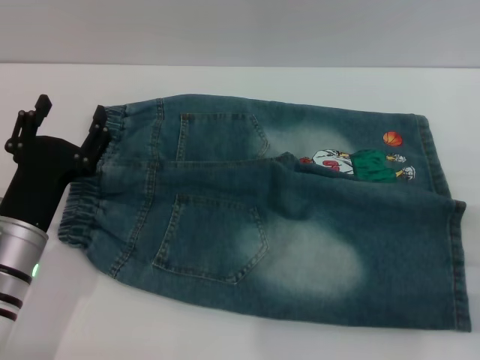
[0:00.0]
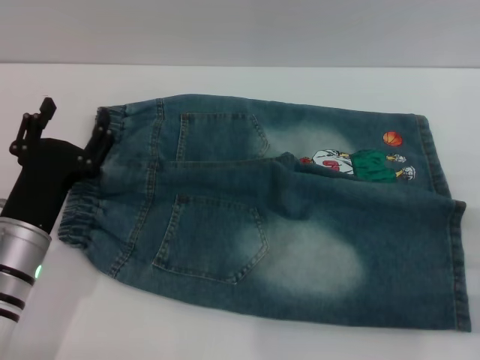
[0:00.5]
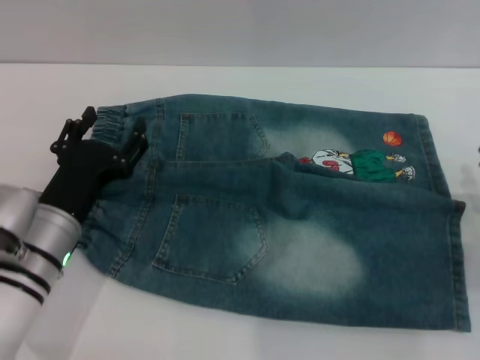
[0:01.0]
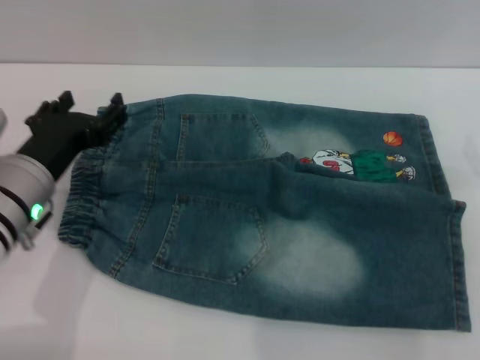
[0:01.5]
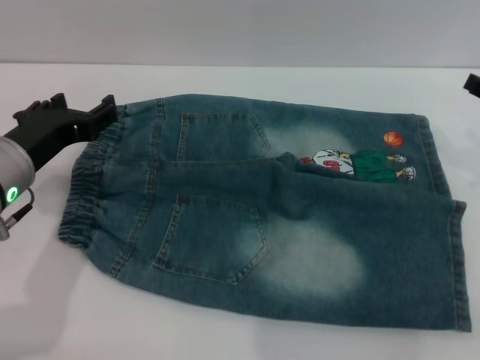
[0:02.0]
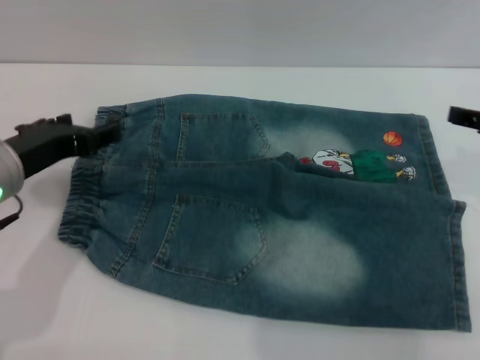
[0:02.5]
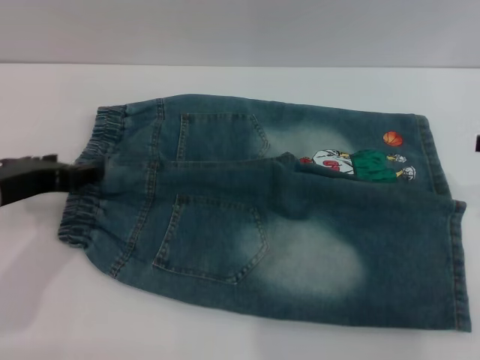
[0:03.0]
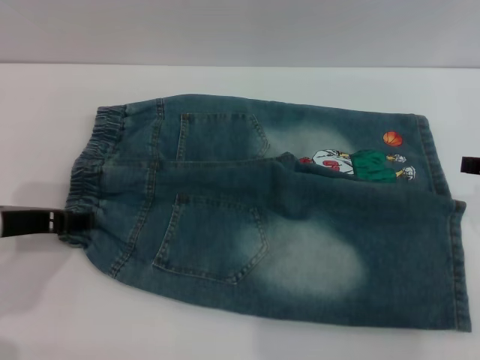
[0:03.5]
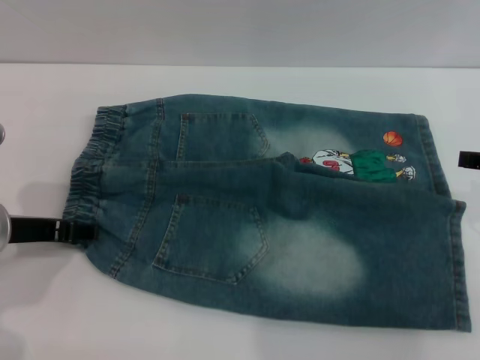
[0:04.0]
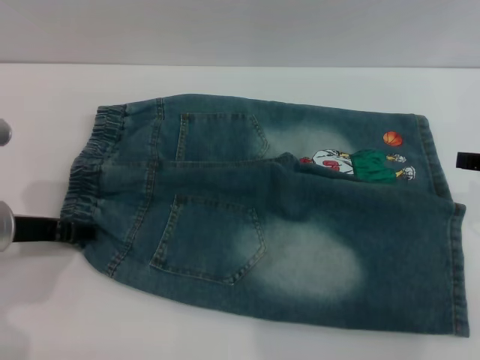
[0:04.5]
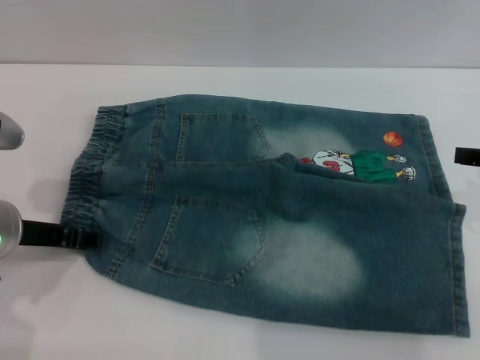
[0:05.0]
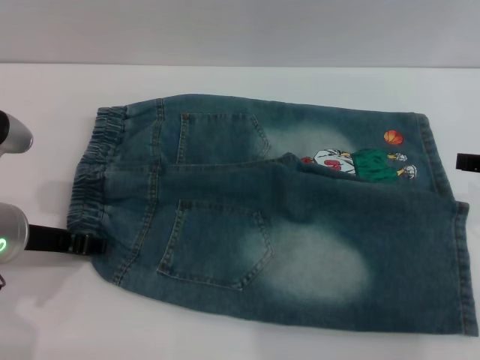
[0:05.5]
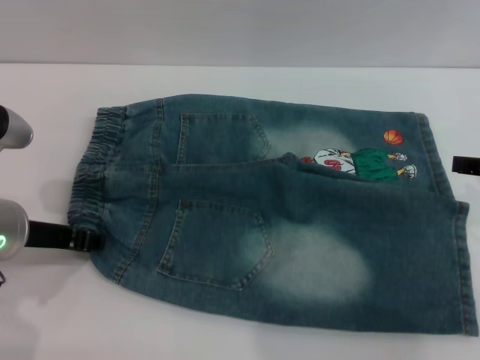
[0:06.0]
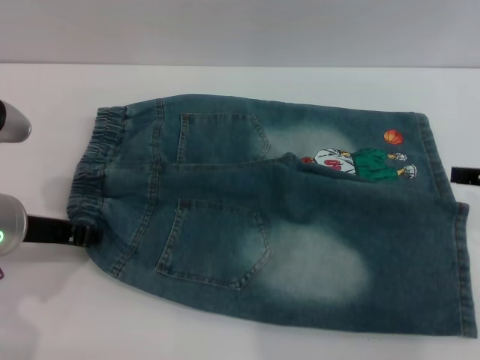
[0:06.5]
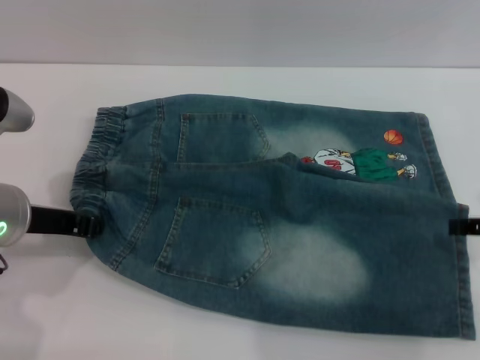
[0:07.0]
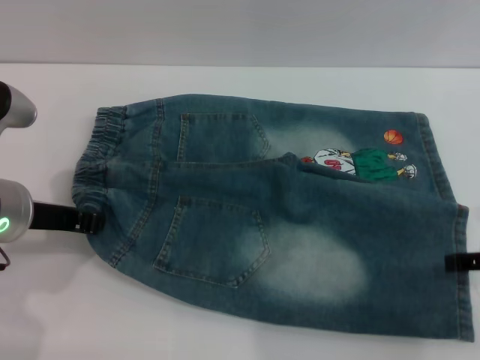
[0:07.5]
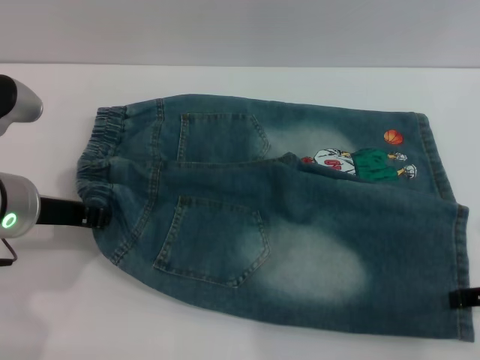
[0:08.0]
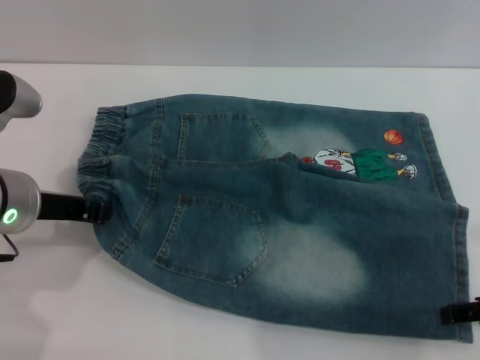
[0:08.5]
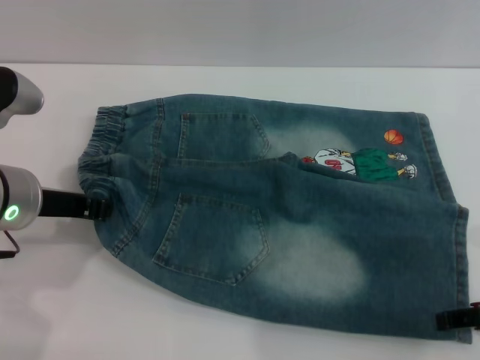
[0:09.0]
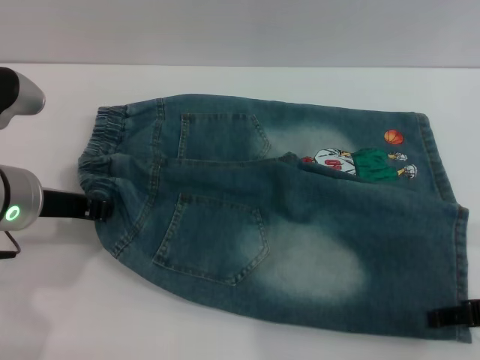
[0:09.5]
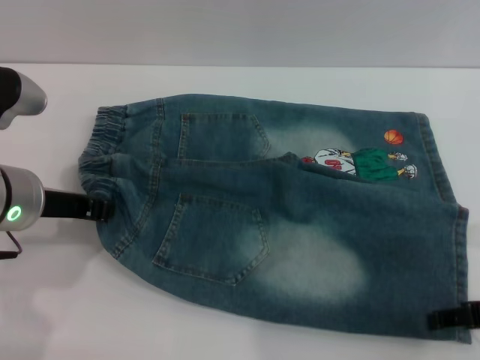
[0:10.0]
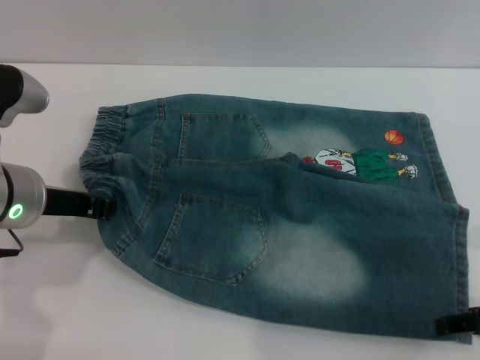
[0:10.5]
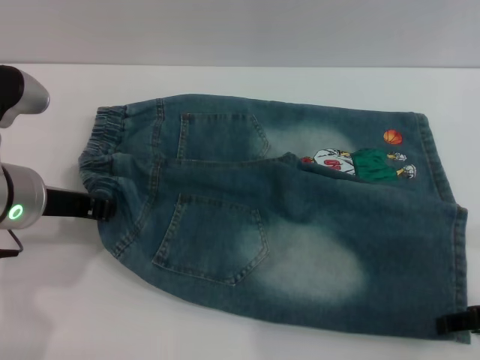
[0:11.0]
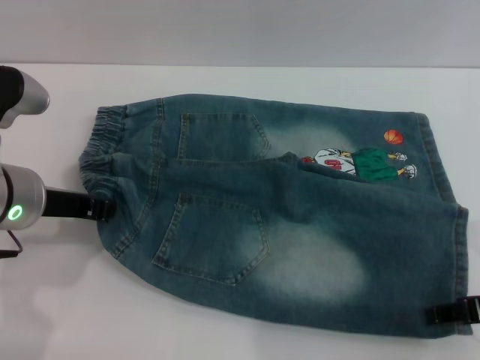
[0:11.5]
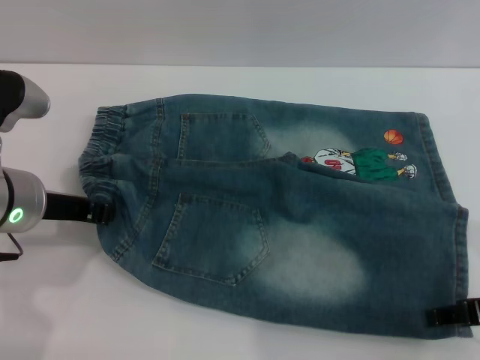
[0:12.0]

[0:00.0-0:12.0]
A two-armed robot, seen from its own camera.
0:00.0 to 0:02.0: The left gripper heads upward, covering roughly 10 cm. Meanwhile the right gripper moves upward and forward, about 15 cm.
0:04.0 to 0:06.0: The left gripper closes its fingers.
0:06.0 to 0:08.0: The right gripper moves backward, roughly 5 cm.
0:08.0 to 0:10.0: The grippers move only a little.
0:10.0 to 0:12.0: Neither gripper changes place.

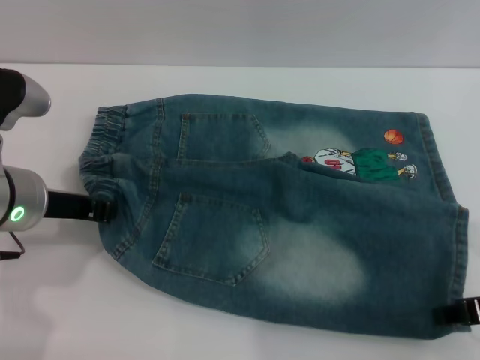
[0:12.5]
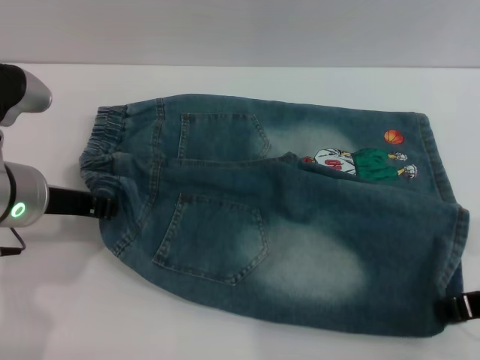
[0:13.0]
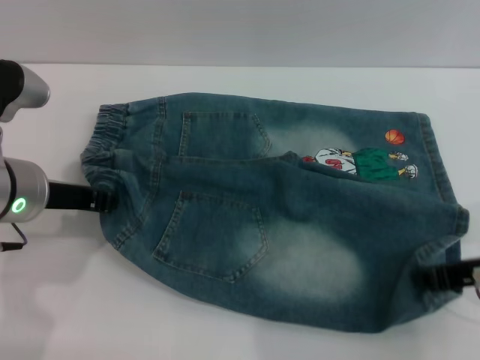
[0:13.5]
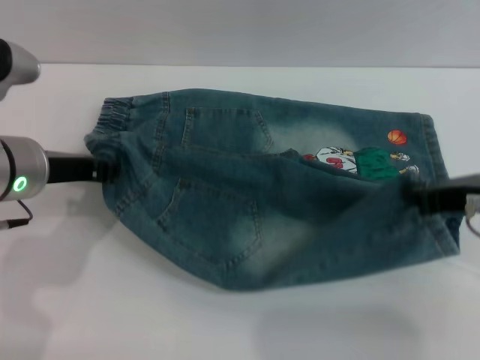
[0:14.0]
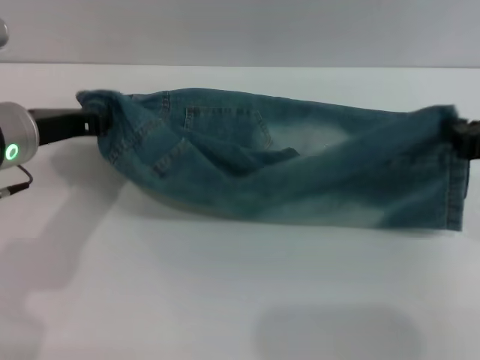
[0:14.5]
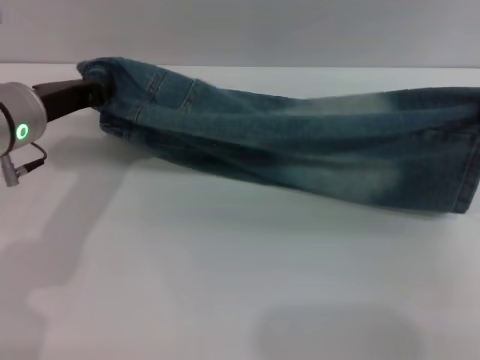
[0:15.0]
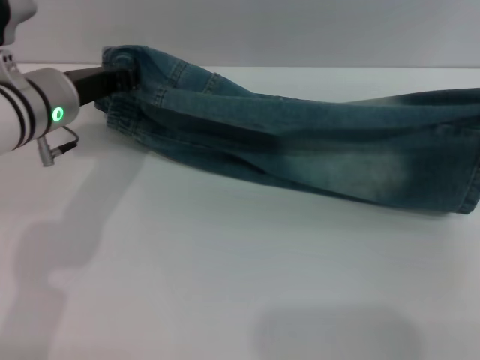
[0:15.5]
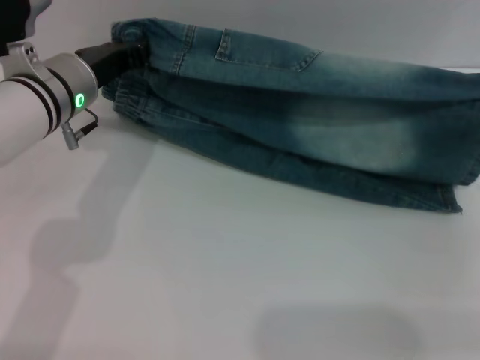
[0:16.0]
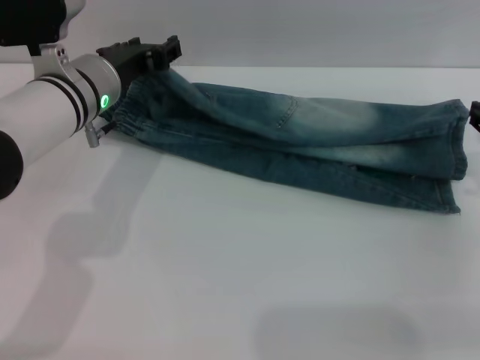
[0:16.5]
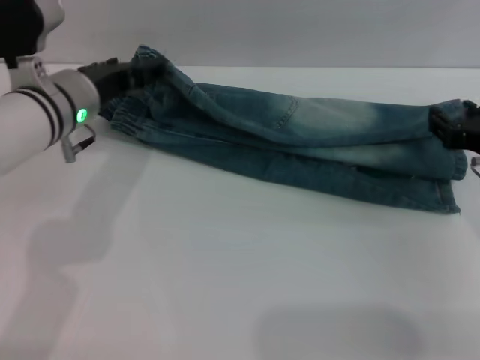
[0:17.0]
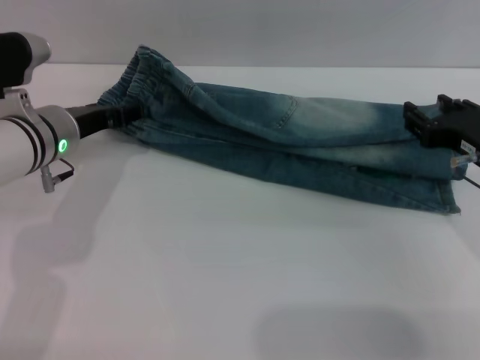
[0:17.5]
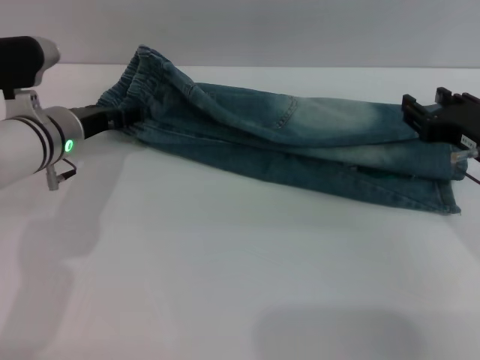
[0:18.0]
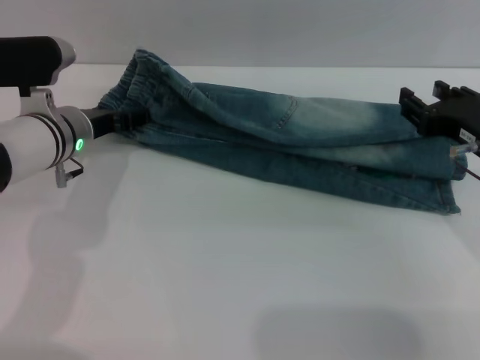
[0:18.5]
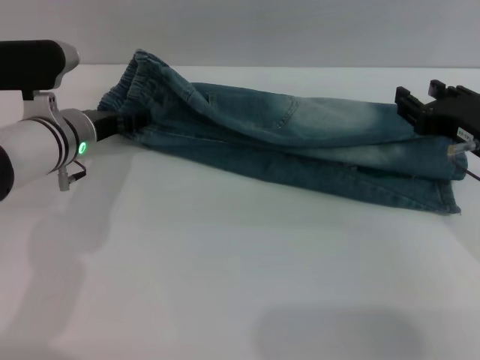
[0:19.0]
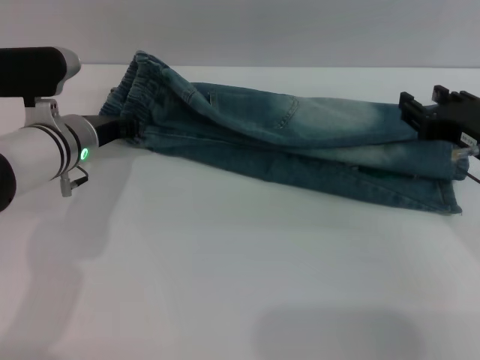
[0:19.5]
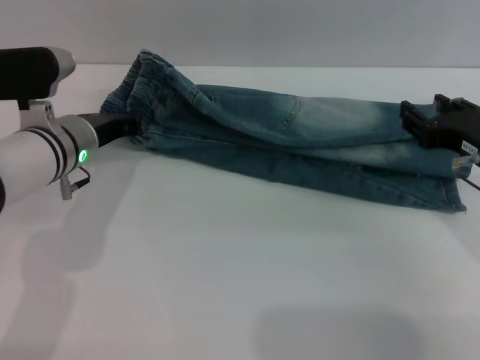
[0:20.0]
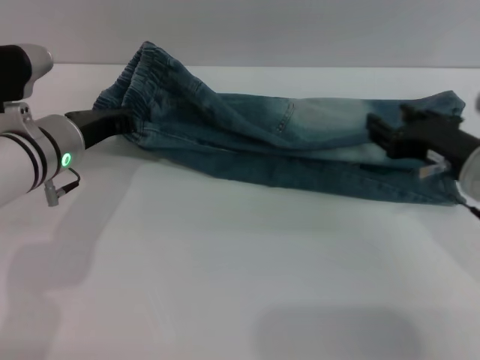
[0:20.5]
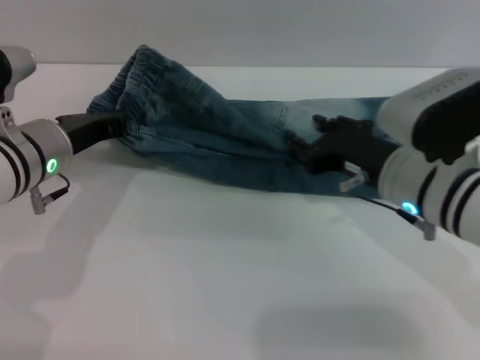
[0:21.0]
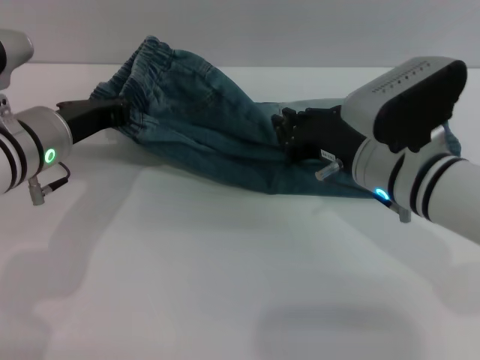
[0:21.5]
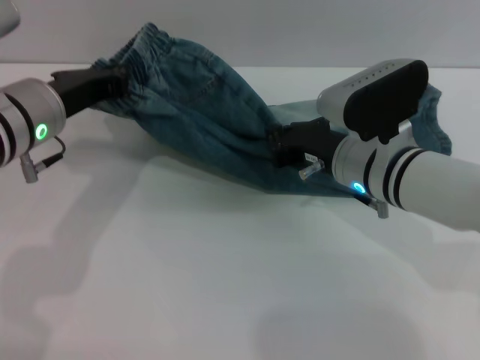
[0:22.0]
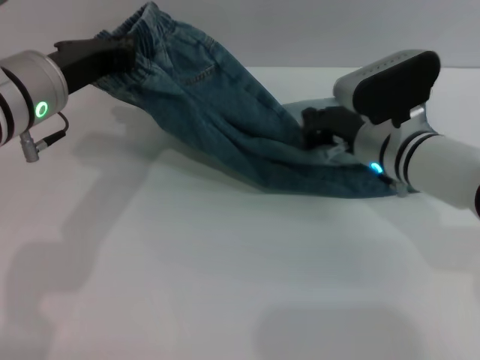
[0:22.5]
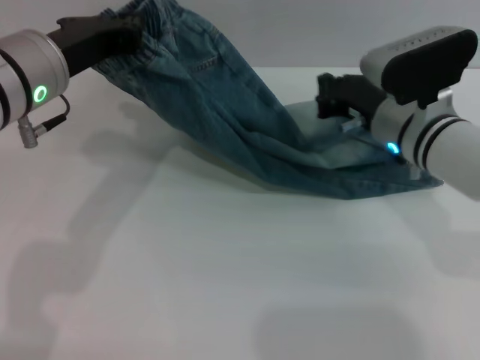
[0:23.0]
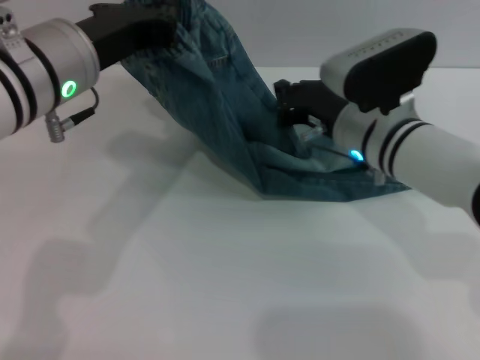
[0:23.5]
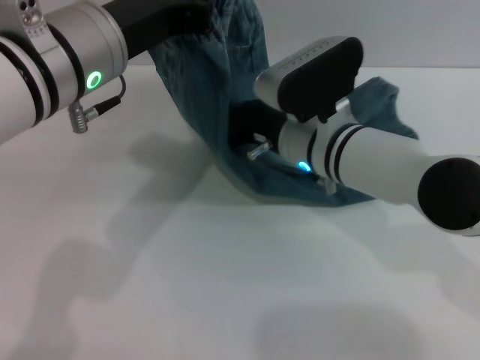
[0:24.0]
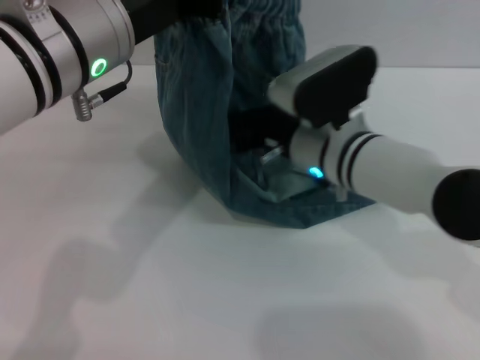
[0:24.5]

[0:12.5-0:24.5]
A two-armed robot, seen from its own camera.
Step, 0:12.5 to 0:16.0: Fold the bottom of the pants upward with both grippers.
0:12.5 to 0:14.5: The right gripper moves roughly 5 cm, and closes up.
0:14.5 to 0:16.5: The right gripper is displaced downward by some 5 cm, and opens, while the left gripper goes about 10 cm forward and to the right.
0:16.5 to 0:18.5: The right gripper is displaced to the left by about 5 cm; the left gripper shifts approximately 5 cm downward, and opens up.
0:18.5 to 0:20.5: The left gripper shifts by some 5 cm, and closes up.
0:20.5 to 0:22.5: The left gripper shifts about 10 cm upward; the right gripper heads forward and to the left, covering roughly 10 cm, and closes.
0:22.5 to 0:24.5: The right gripper travels to the left by some 5 cm. The left gripper heads upward and to the right, covering some 10 cm.

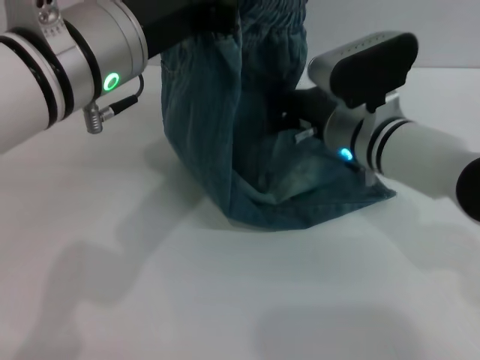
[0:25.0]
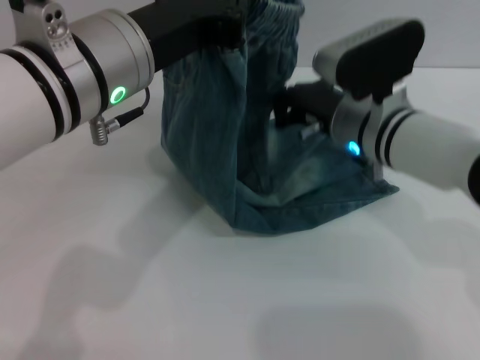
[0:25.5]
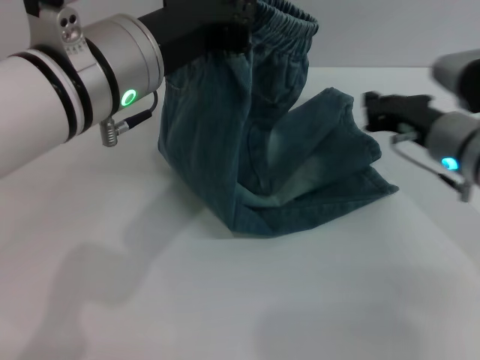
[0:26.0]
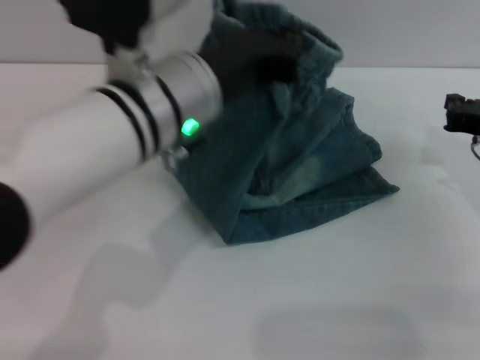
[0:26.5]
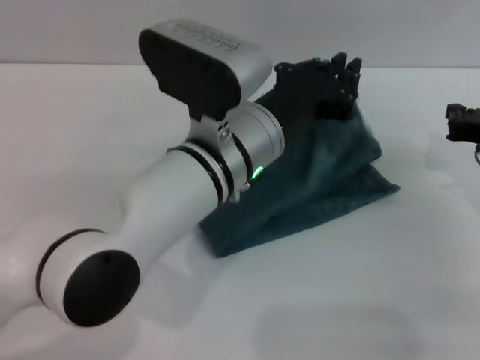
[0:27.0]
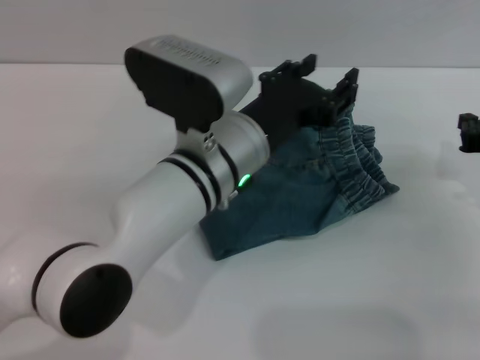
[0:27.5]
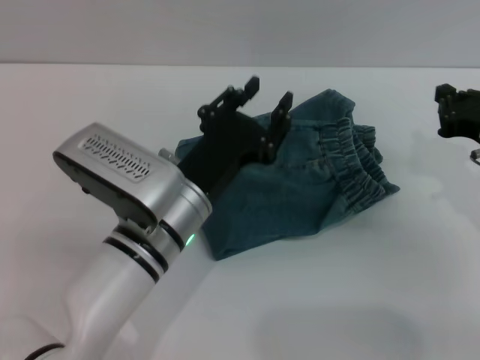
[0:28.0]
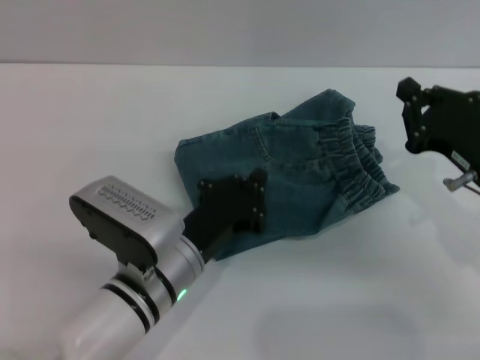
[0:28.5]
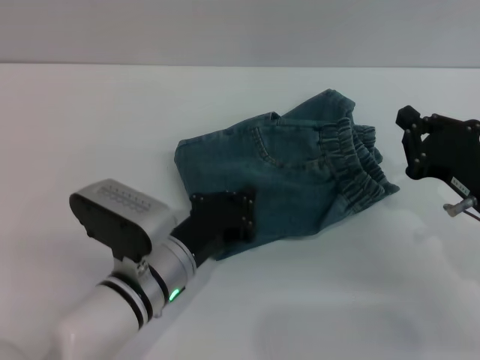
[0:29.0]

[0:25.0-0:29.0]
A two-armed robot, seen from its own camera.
Step, 0:25.0 to 0:28.0: Fold the pants from left to right with the left gripper.
0:25.0 to 0:27.0: The right gripper travels to the right by roughly 15 cm. Meanwhile the left gripper shifts roughly 15 cm downward and to the right.
0:27.0 to 0:29.0: The left gripper goes roughly 15 cm downward, to the left and backward, and opens, then closes once more, while the right gripper travels backward by some 5 cm.
